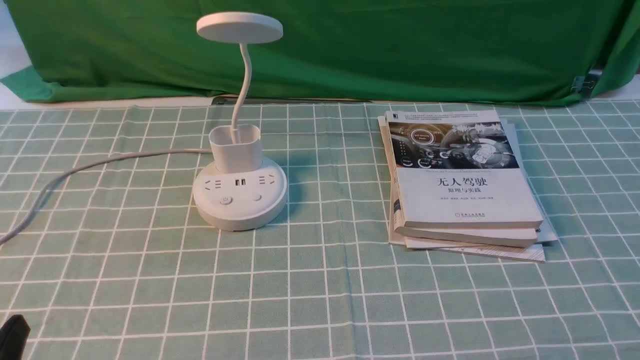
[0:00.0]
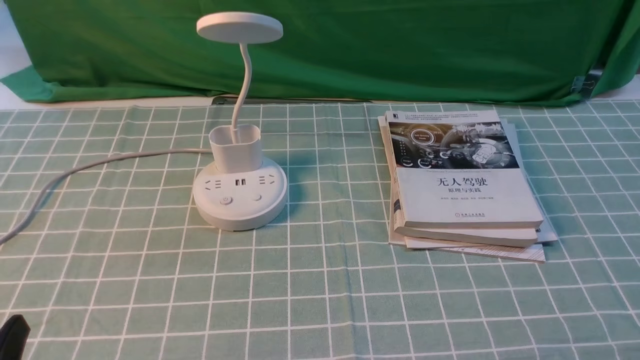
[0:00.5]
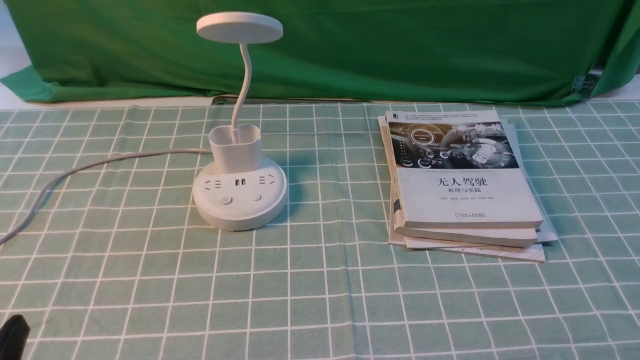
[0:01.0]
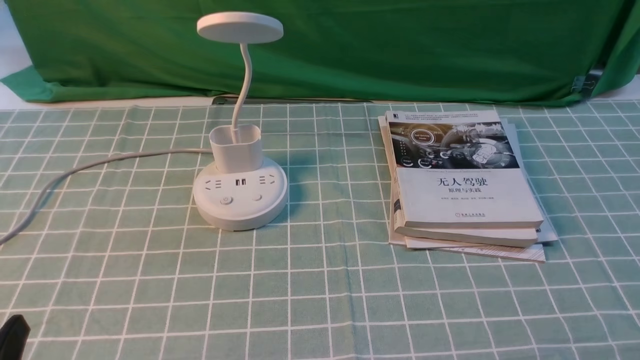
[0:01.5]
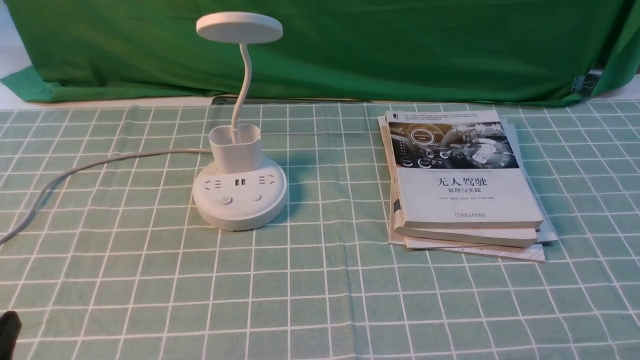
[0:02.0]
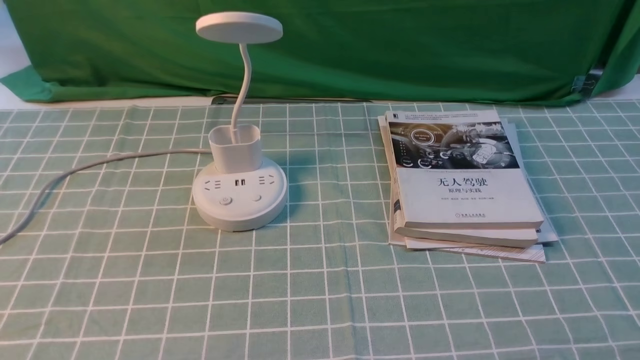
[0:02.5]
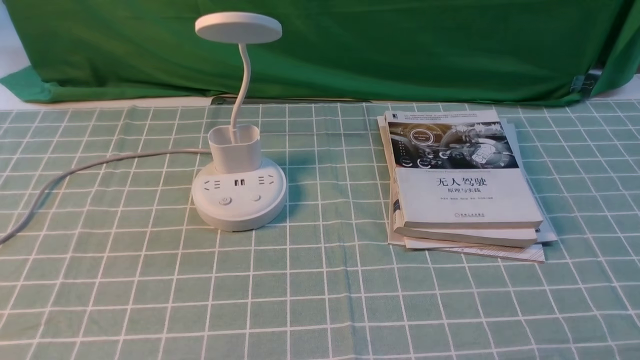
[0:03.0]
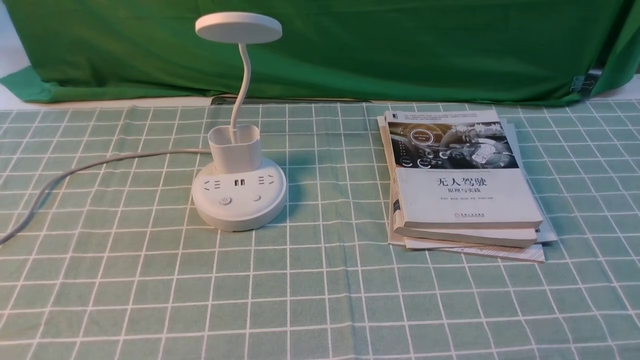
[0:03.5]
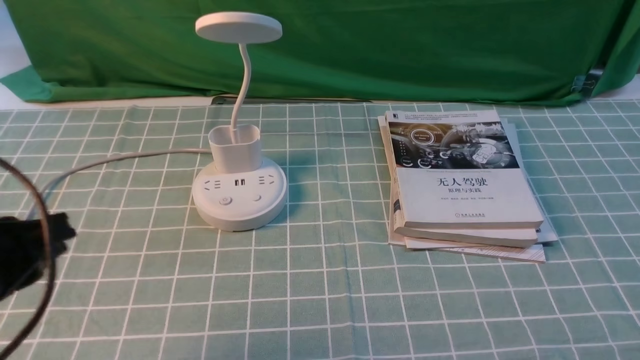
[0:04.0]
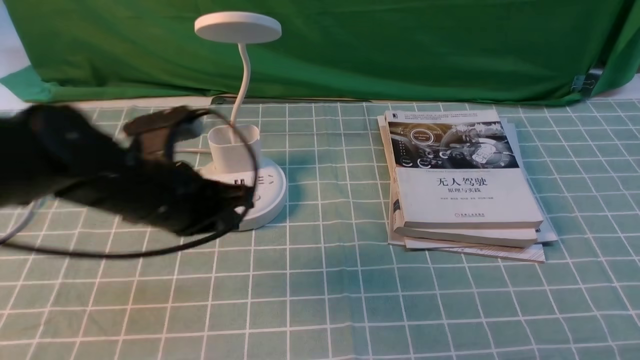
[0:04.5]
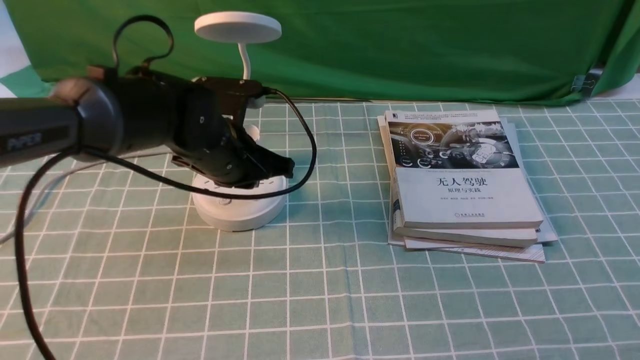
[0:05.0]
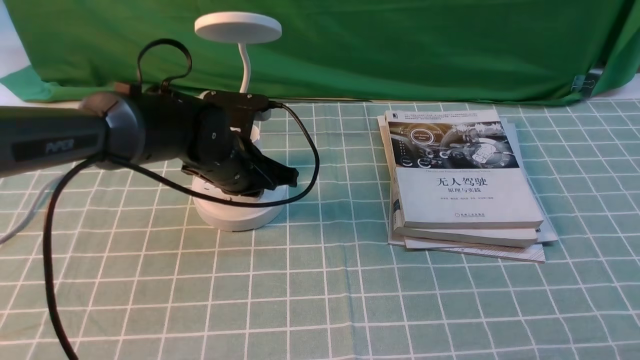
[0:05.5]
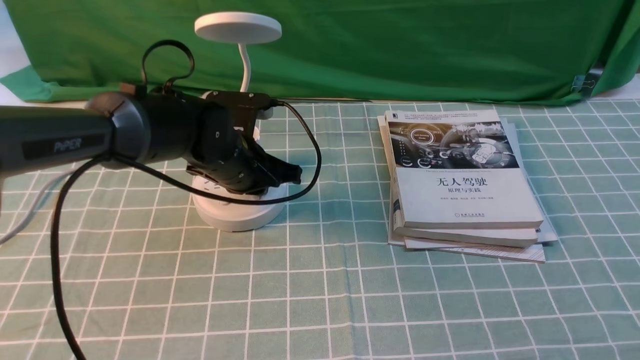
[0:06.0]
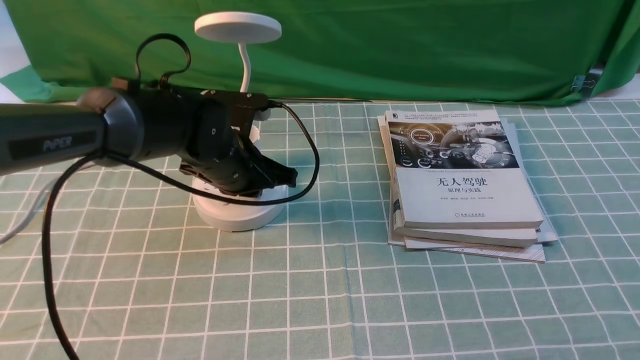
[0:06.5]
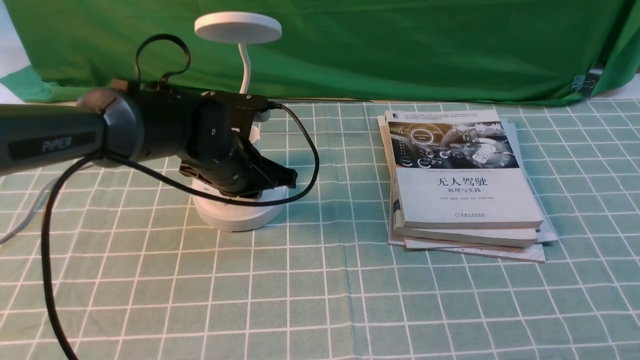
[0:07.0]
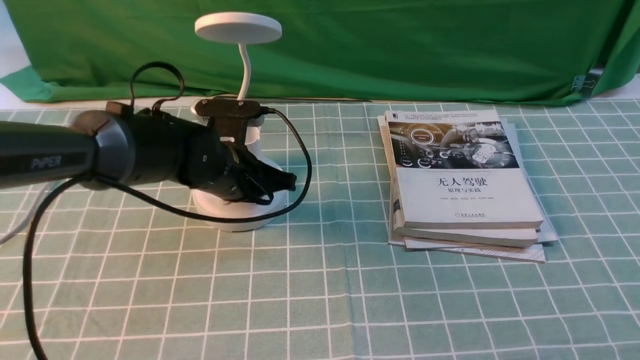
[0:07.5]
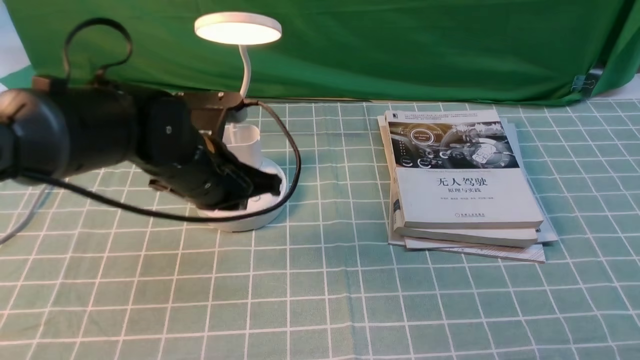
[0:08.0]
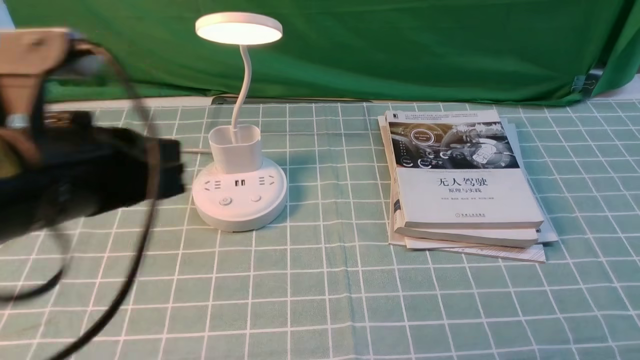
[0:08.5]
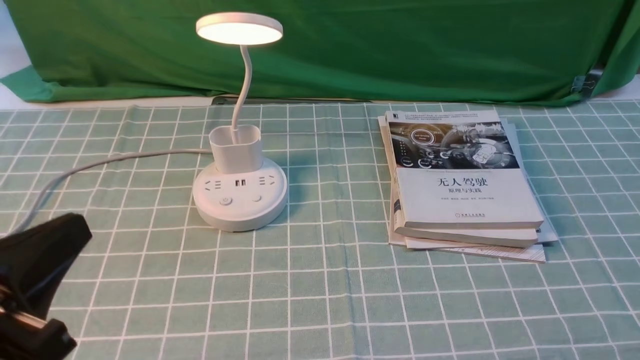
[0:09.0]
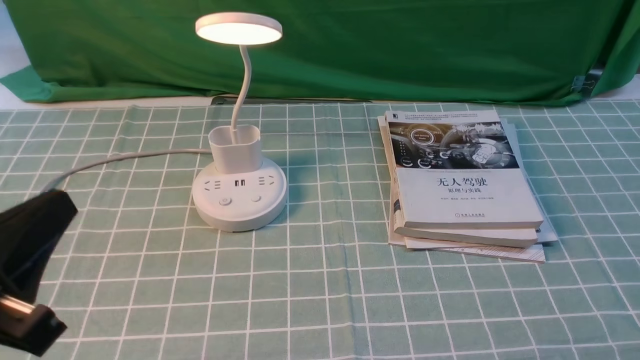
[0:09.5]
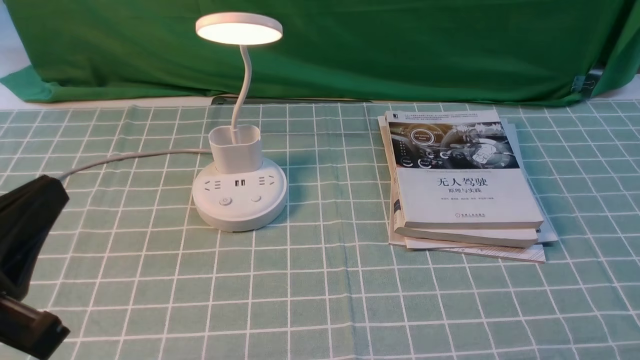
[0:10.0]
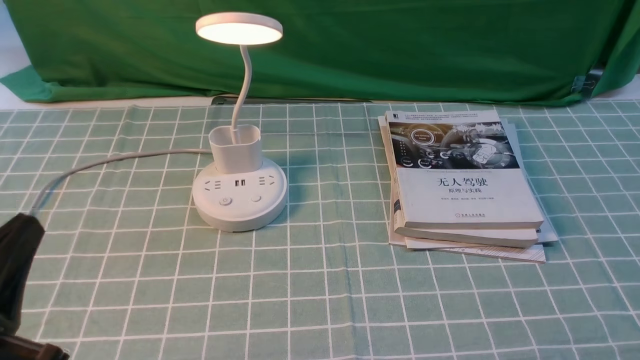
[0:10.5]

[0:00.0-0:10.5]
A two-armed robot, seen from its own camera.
Step, 0:00.0 to 0:07.5: use the left arm to press the button switch on the lamp holder.
0:02.0 to 0:04.0: The left gripper goes approximately 15 cm forward and upward, and closes its fingers.
0:04.0 to 0:06.5: The left gripper travels forward, to the right and downward by some 25 cm.
0:06.5 to 0:08.5: The left gripper heads backward, upward and to the left, covering approximately 25 cm.
0:08.5 to 0:10.5: The left gripper goes approximately 15 cm backward, downward and to the left.

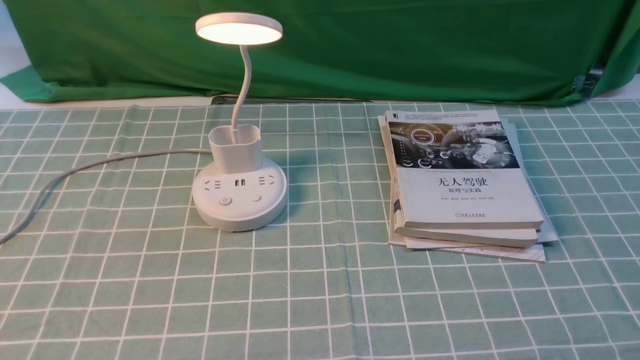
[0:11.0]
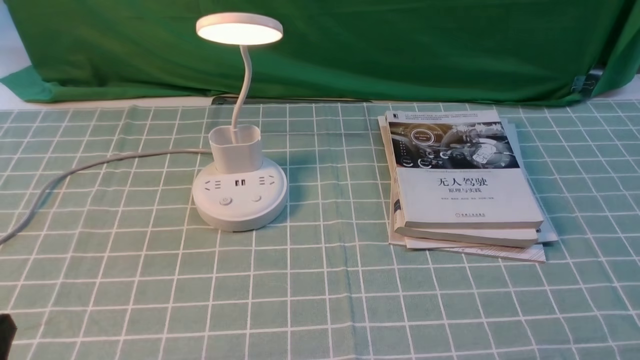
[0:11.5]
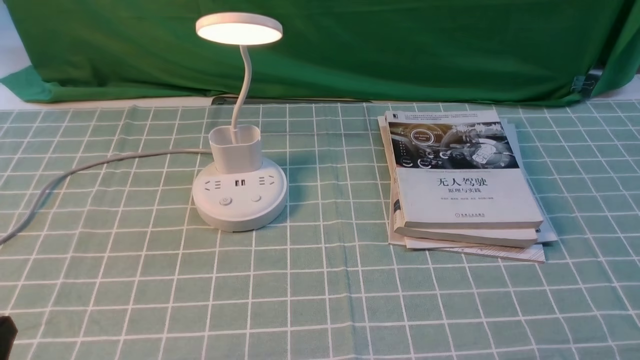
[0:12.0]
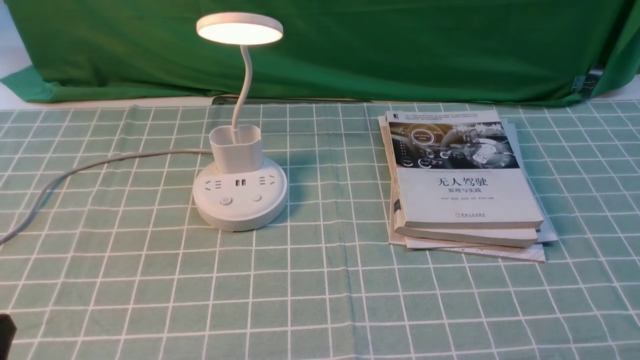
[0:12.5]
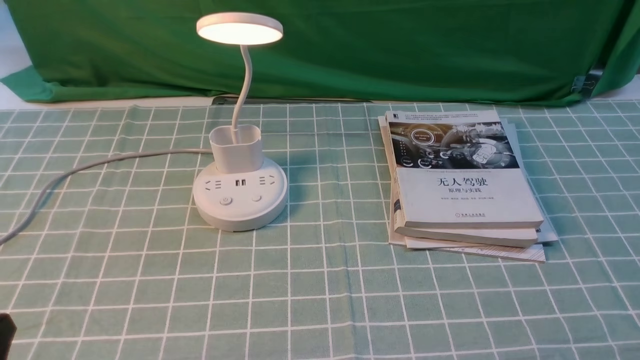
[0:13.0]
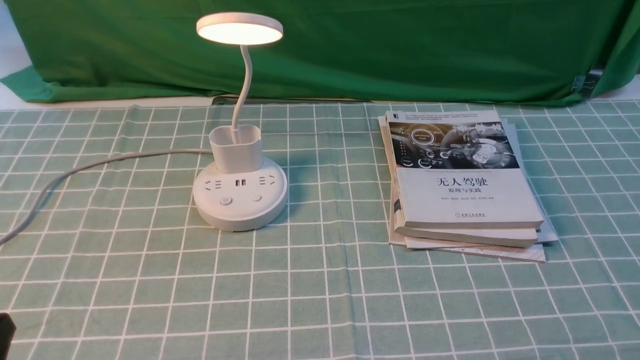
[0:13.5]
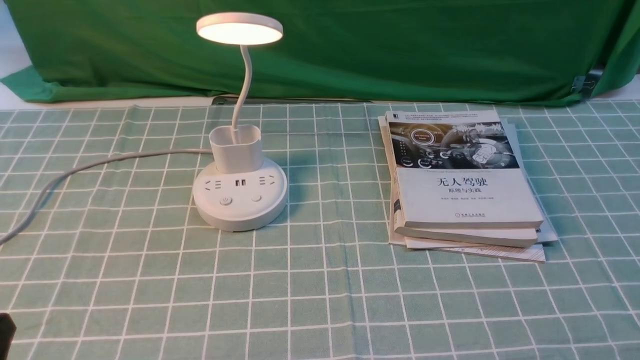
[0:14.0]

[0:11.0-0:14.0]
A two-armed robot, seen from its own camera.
0:12.5 to 0:14.0: Both grippers stay about where they are.

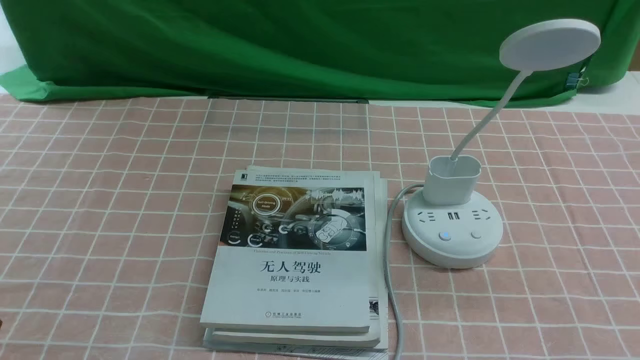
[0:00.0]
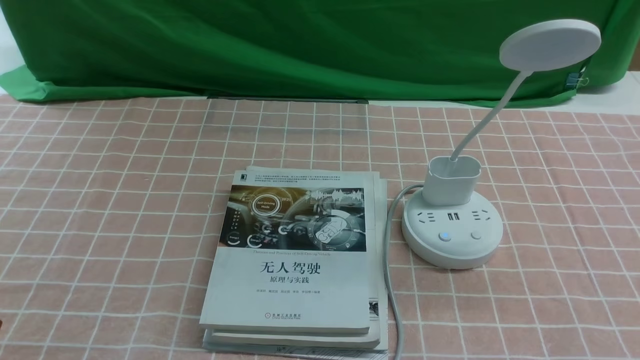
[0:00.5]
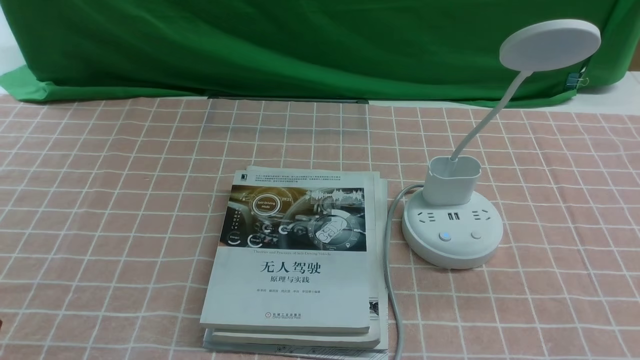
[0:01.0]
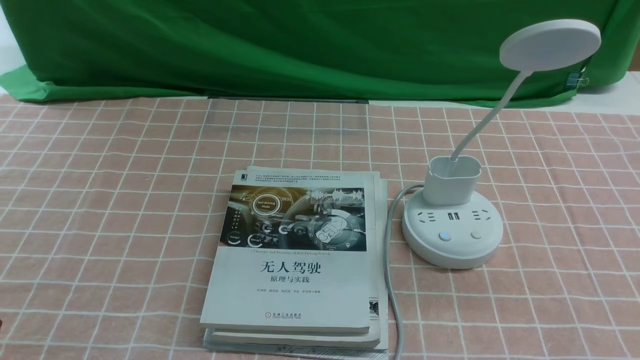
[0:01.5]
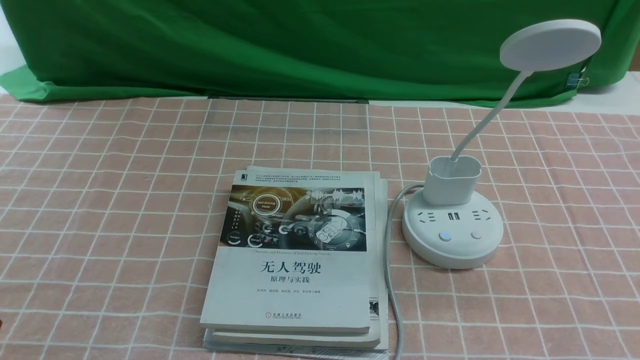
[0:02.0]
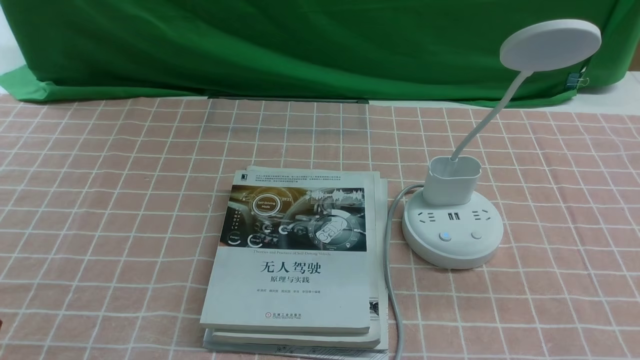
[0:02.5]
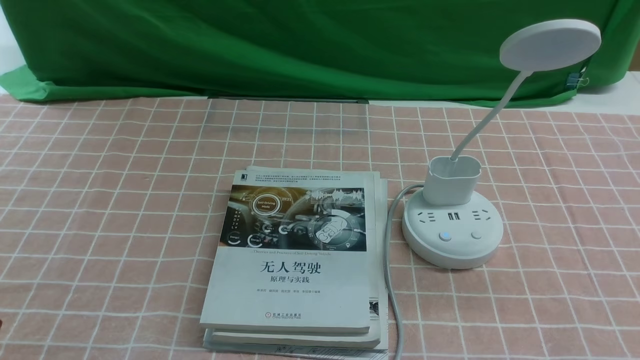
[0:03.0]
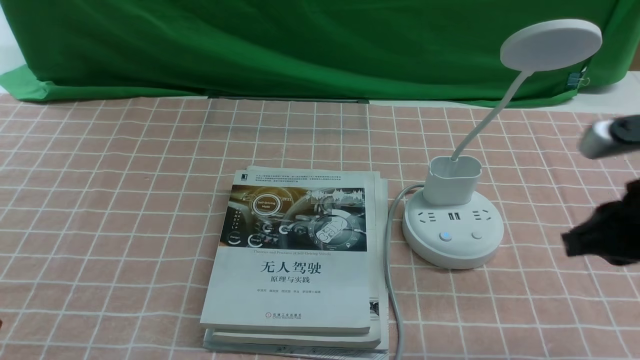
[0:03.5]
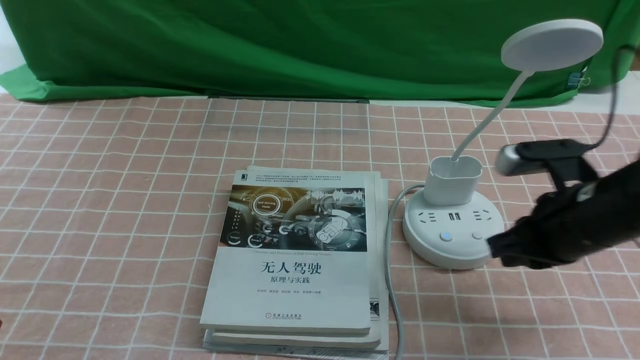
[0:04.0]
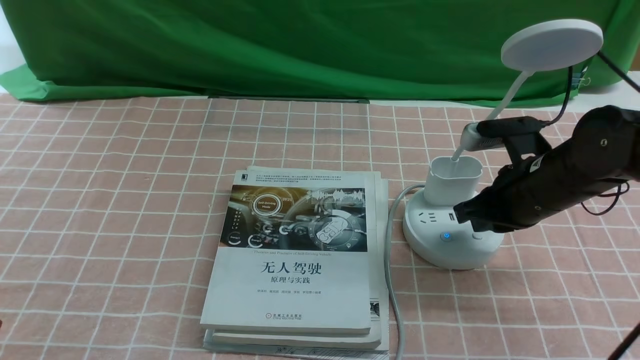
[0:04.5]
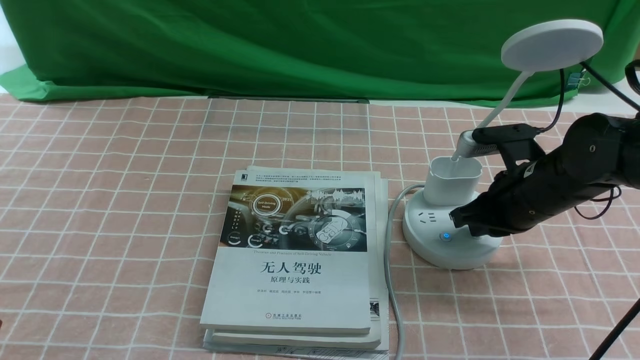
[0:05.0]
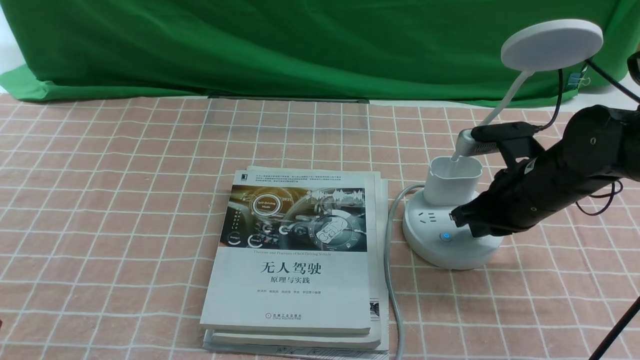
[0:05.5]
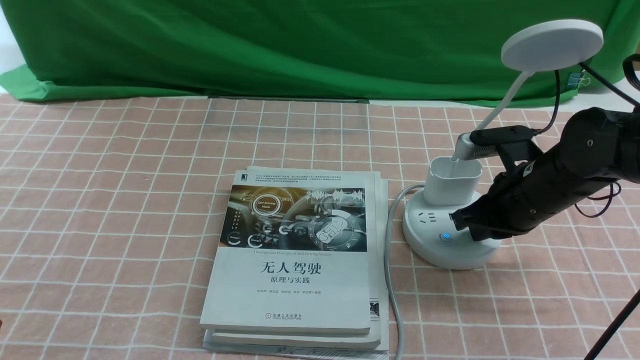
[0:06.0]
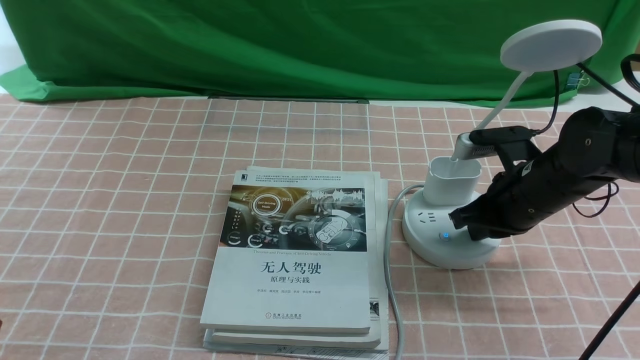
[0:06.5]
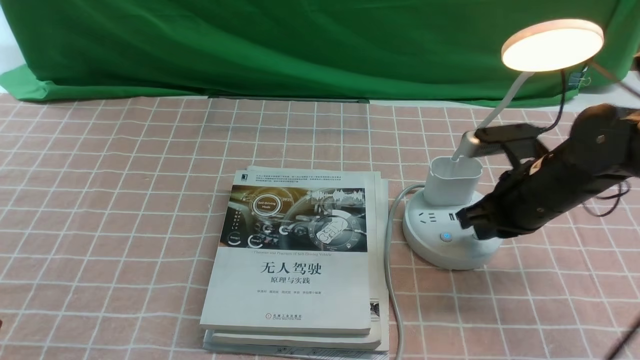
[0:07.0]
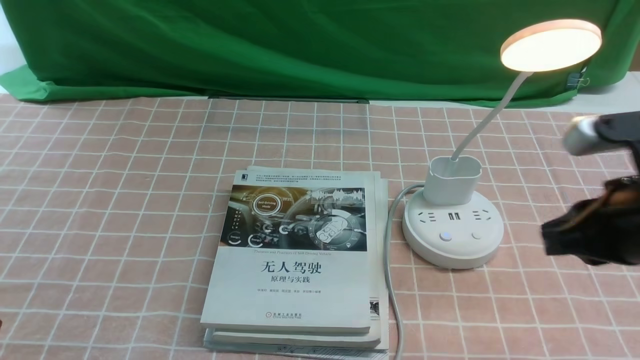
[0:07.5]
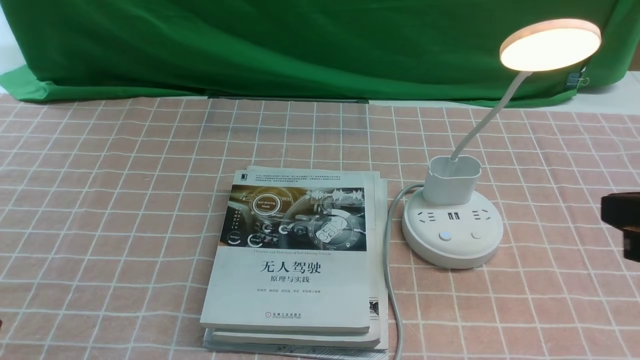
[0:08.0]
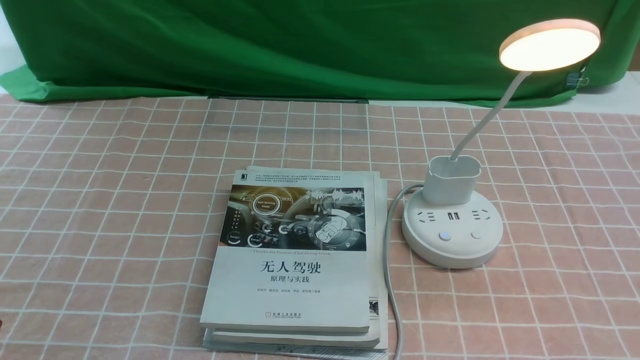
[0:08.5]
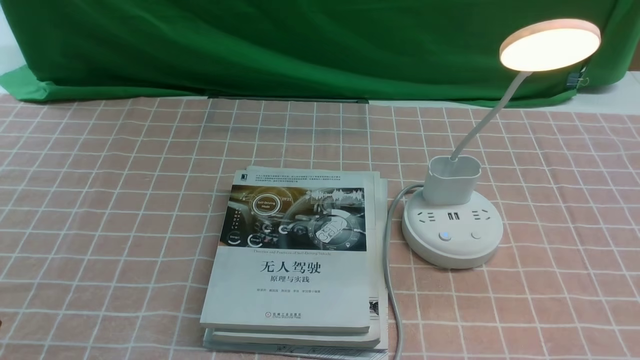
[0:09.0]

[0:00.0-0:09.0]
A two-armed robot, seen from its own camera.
Step, 0:00.0 to 0:07.0: use the right arm to press the button switch on the lamp holder.
0:02.0 to 0:04.5: The right gripper moves forward, roughly 30 cm, and closes.
0:04.5 to 0:07.0: The grippers make only small movements.
0:07.0 to 0:09.0: The right gripper is displaced backward by approximately 25 cm.
